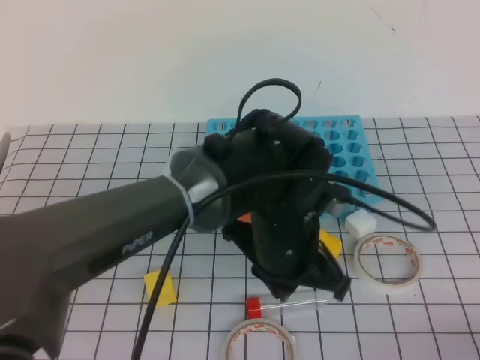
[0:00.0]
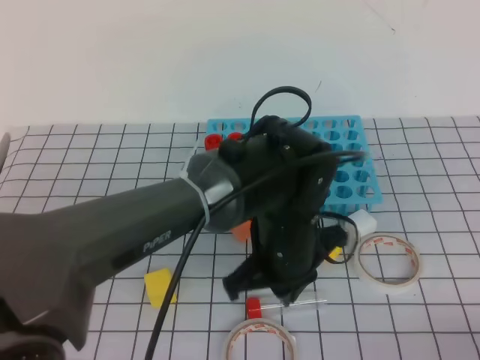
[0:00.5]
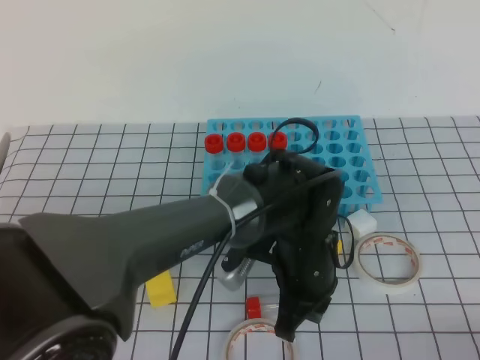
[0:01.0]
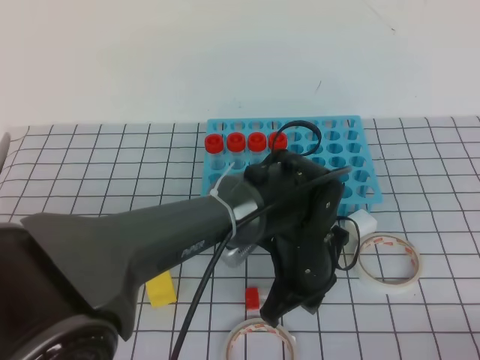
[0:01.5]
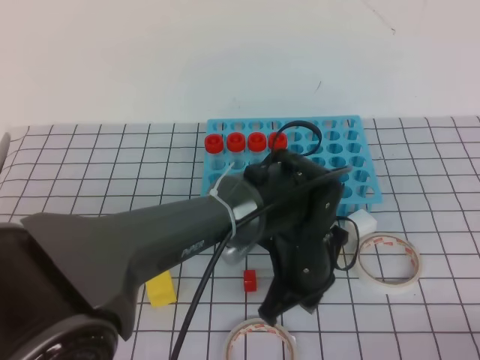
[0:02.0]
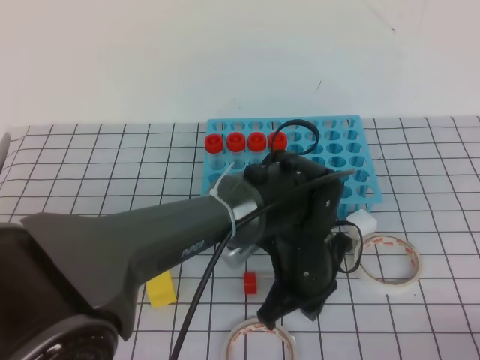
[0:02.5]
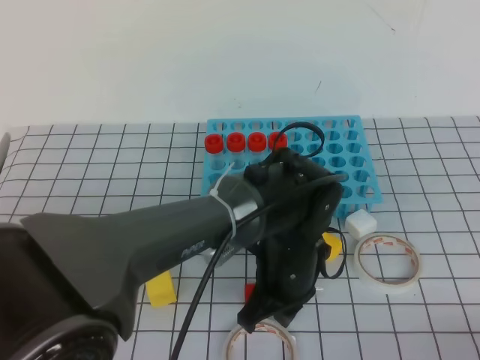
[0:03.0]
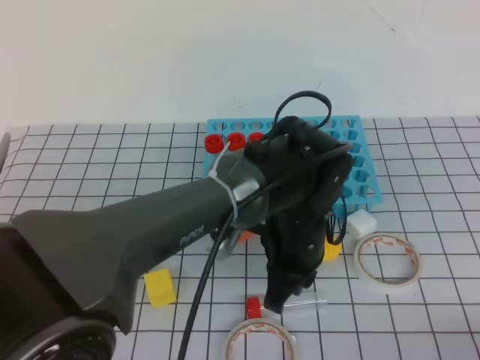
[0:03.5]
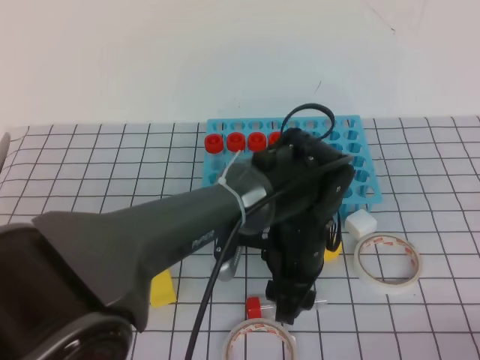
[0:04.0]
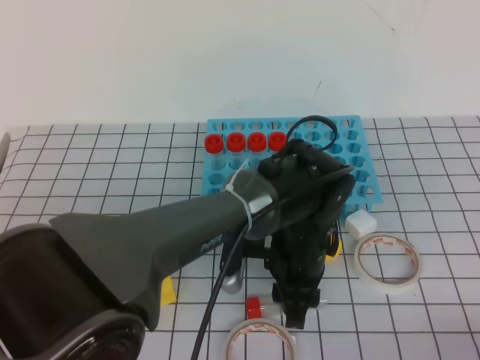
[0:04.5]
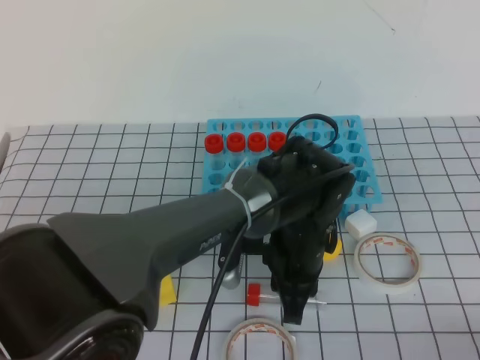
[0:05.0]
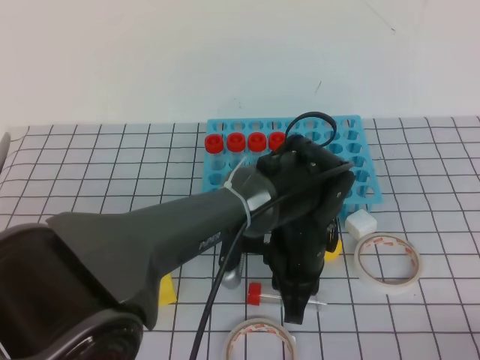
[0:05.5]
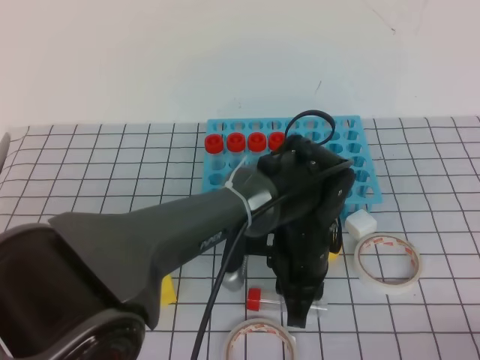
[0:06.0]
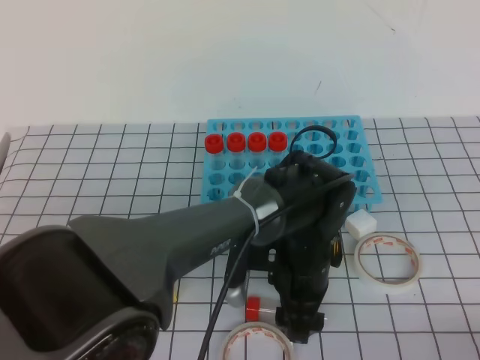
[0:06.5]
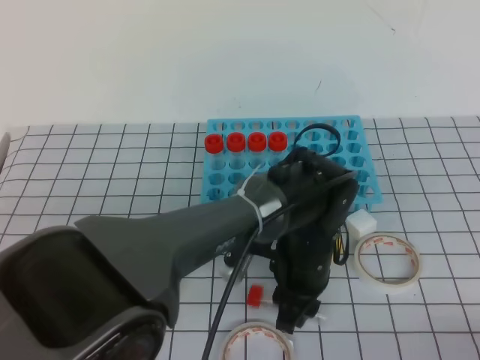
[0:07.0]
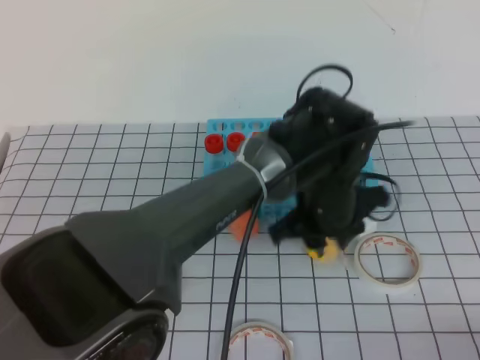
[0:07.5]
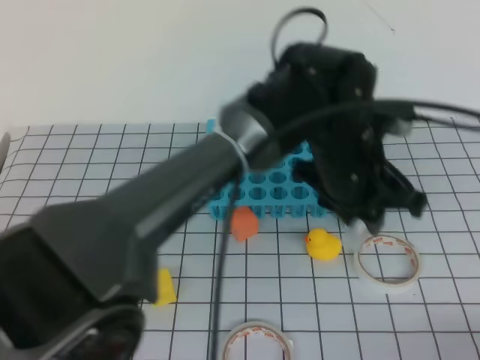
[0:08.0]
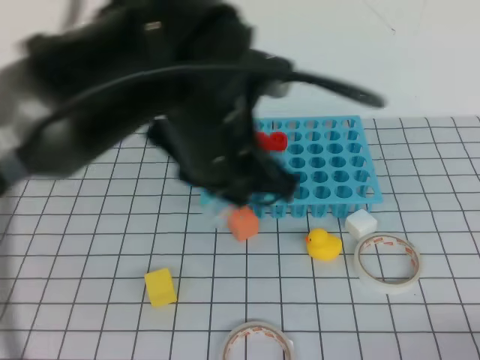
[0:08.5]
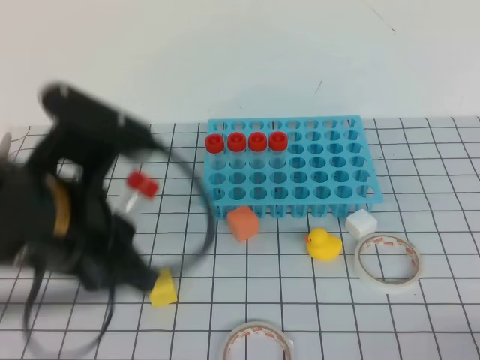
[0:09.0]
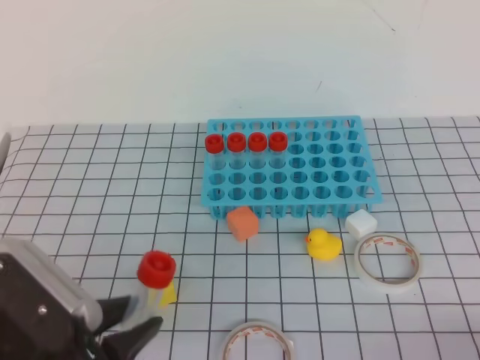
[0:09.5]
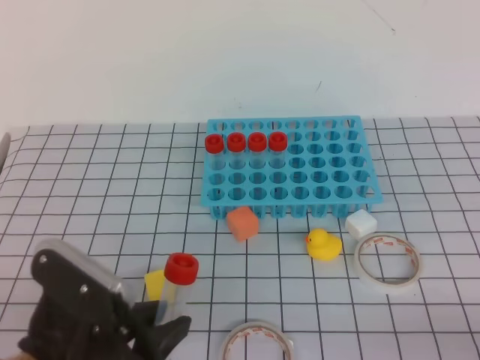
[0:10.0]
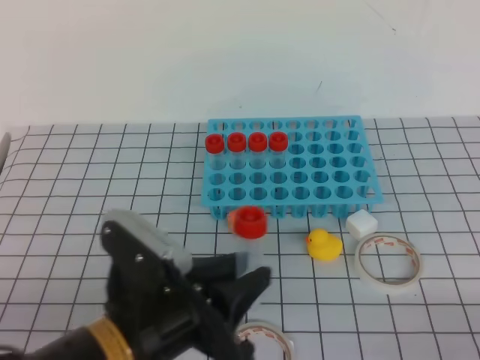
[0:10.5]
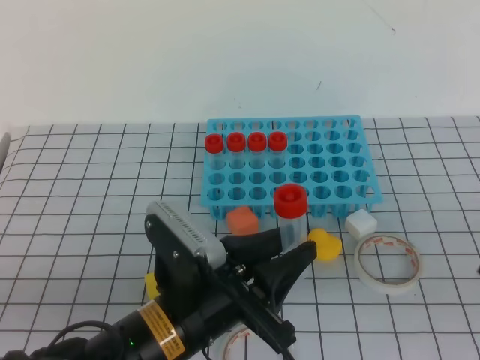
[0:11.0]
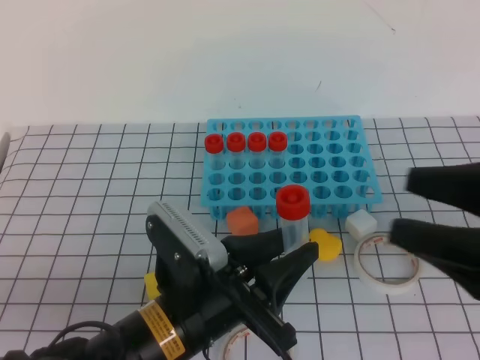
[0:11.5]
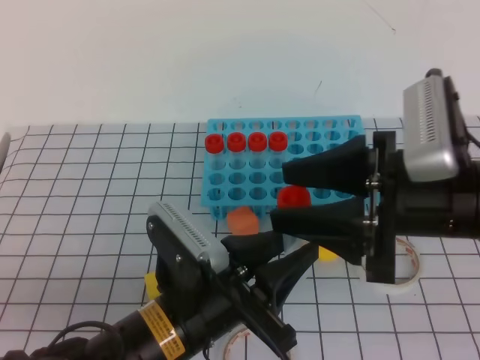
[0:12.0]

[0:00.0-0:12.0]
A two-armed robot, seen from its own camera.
0:00.0 to 0:02.0: The left gripper heads downward, covering some 5 cm.
0:02.0 to 0:04.0: The left gripper opens.
0:04.0 to 0:06.0: The left gripper closes its fingers.
0:06.0 to 0:08.0: The left gripper heads upward, covering roughly 10 cm, and opens and closes again.
0:08.0 to 0:10.0: The left gripper goes some 30 cm to the left and backward.
0:10.0 to 0:12.0: The left gripper goes roughly 10 cm to the right and forward; the right gripper travels forward, to the left and upward by some 25 cm, and opens its fingers.

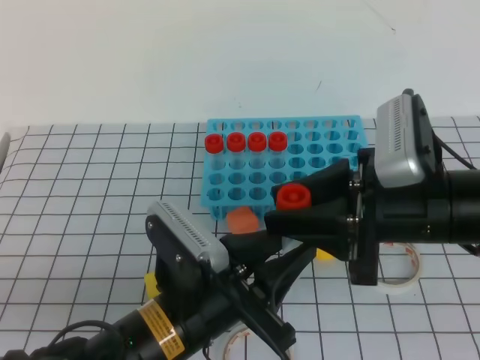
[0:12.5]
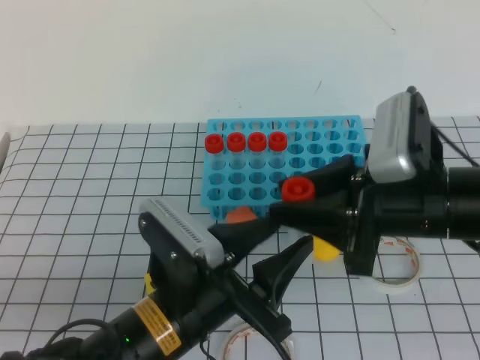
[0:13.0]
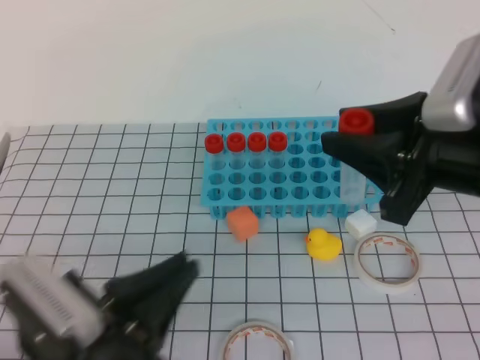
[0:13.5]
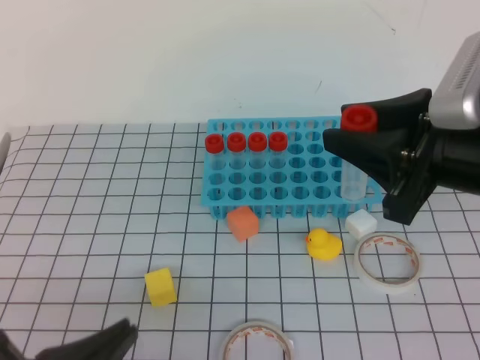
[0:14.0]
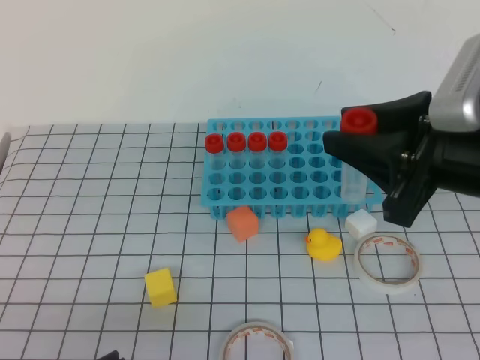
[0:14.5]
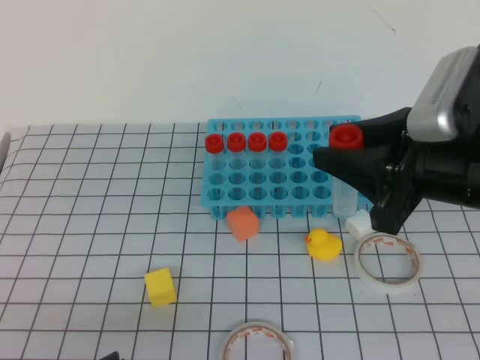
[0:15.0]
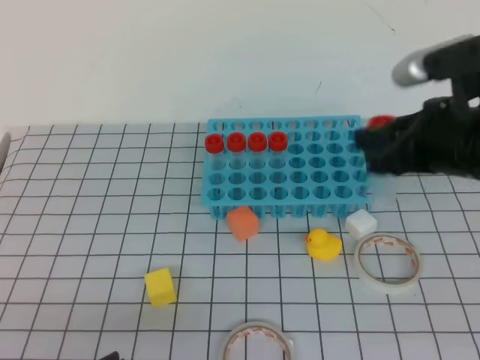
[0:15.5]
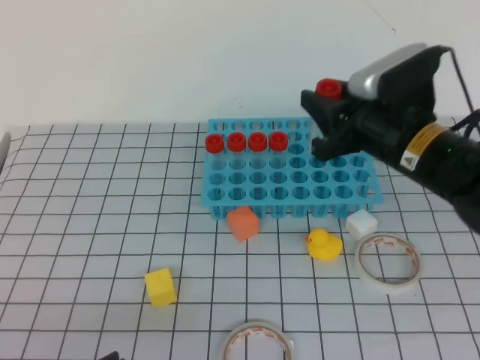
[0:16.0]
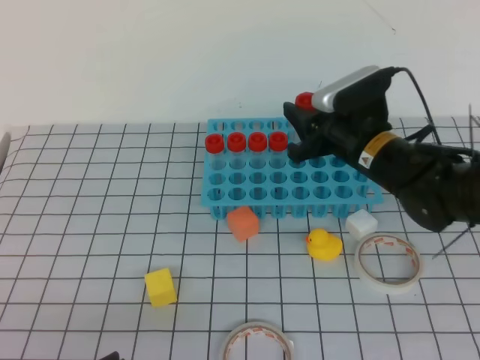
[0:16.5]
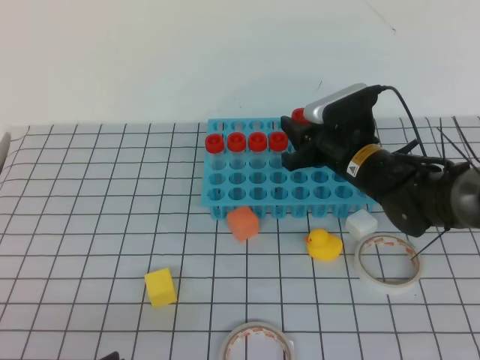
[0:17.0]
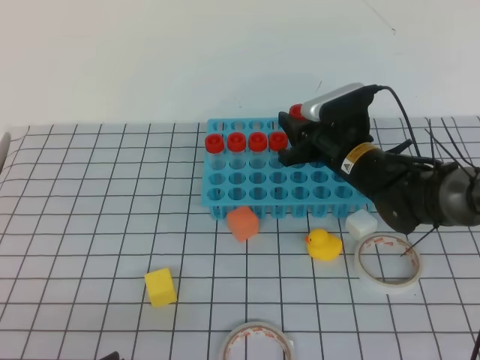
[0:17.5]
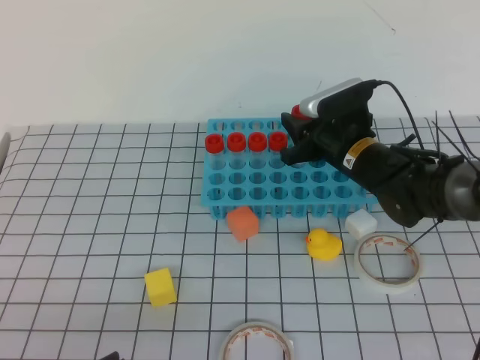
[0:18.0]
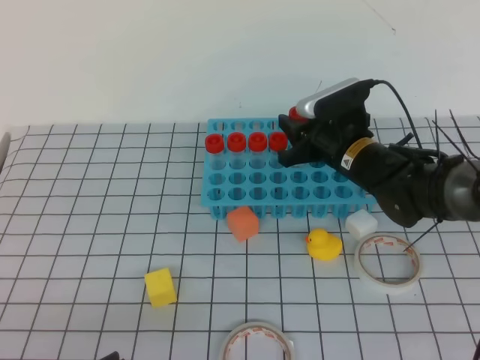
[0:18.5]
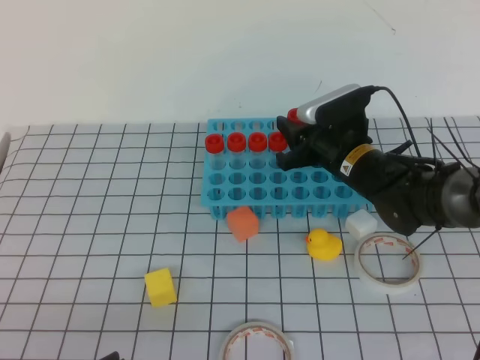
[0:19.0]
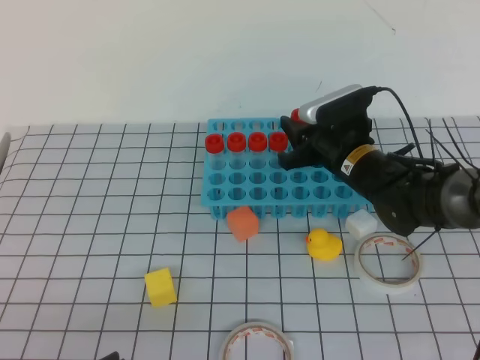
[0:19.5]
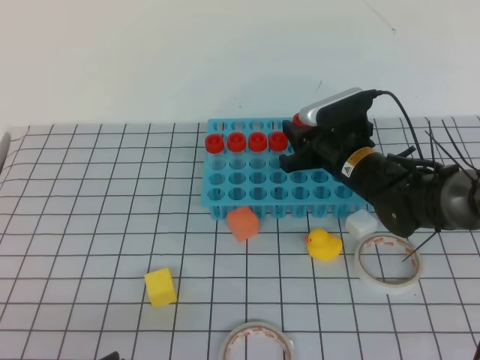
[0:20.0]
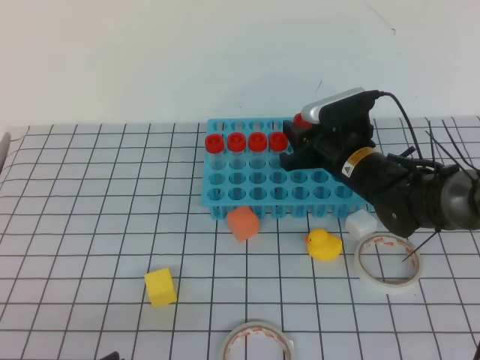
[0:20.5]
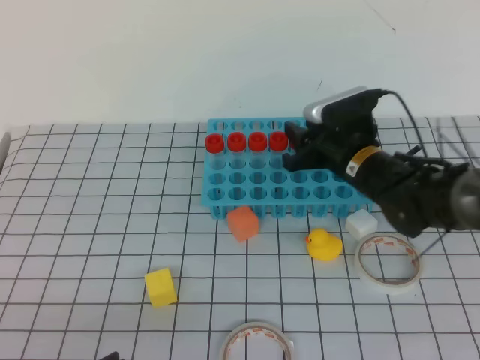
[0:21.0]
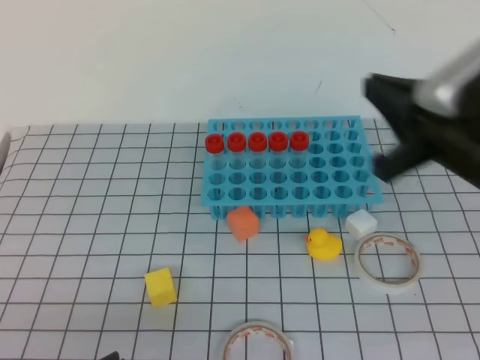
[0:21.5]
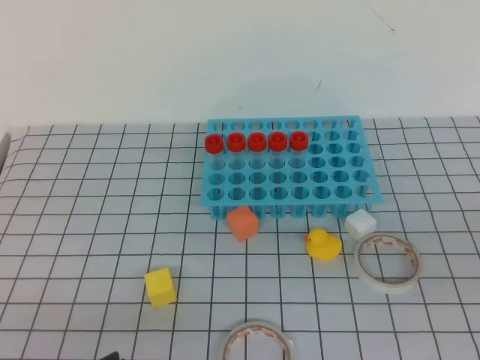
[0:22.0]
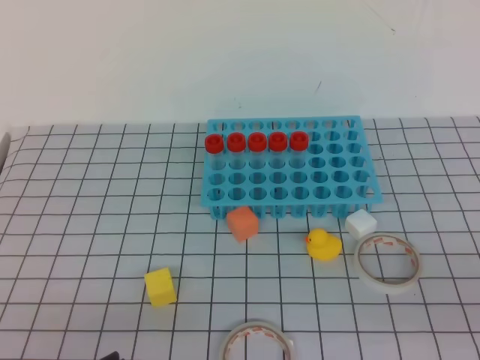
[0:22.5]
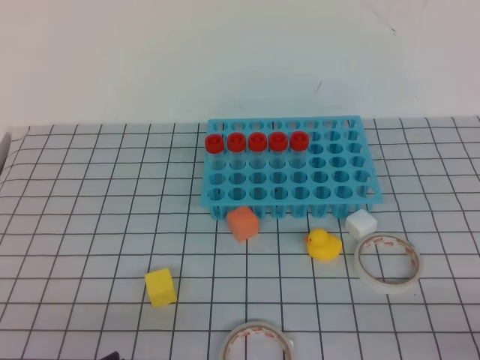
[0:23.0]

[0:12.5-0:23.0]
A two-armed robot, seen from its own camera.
0:12.5 to 0:14.5: The left gripper shifts some 20 cm to the left and backward, and closes up. The right gripper moves some 5 cm.
0:14.5 to 0:16.5: The right gripper shifts roughly 20 cm forward and downward.
0:16.5 to 0:19.0: The right gripper moves about 5 cm.
0:19.0 to 0:21.0: There are only small adjustments of the grippers.
0:21.0 to 0:23.0: The right gripper moves backward and to the right, some 40 cm, and closes.
